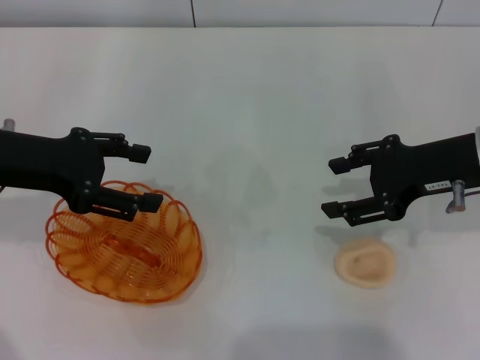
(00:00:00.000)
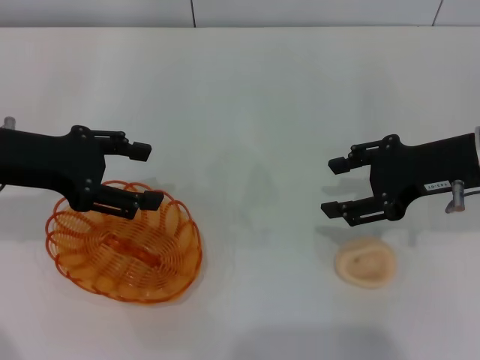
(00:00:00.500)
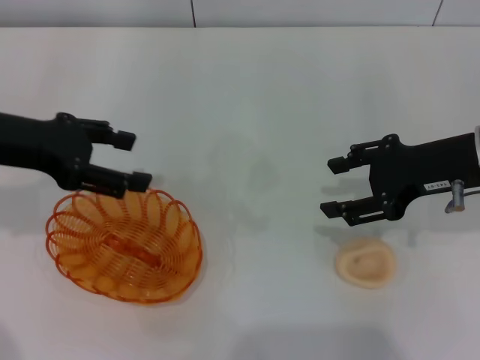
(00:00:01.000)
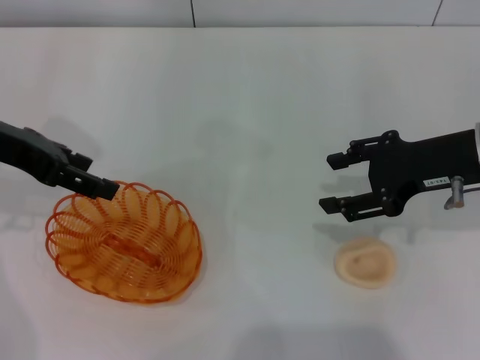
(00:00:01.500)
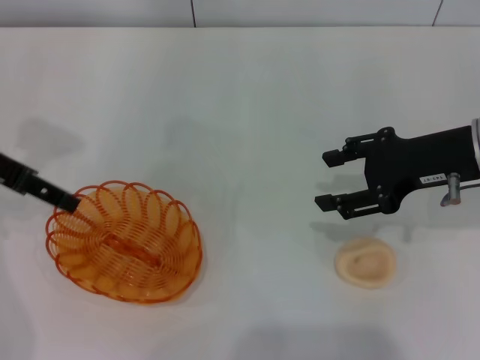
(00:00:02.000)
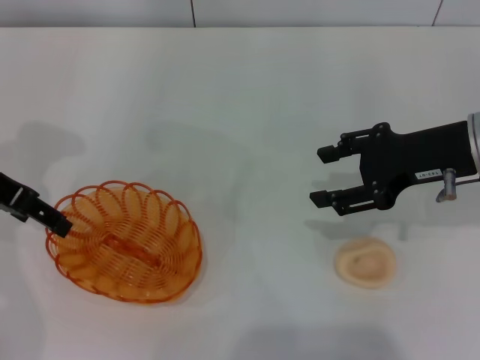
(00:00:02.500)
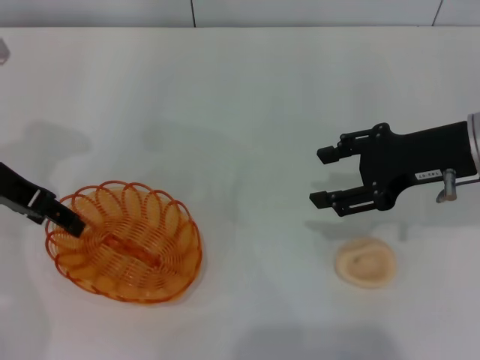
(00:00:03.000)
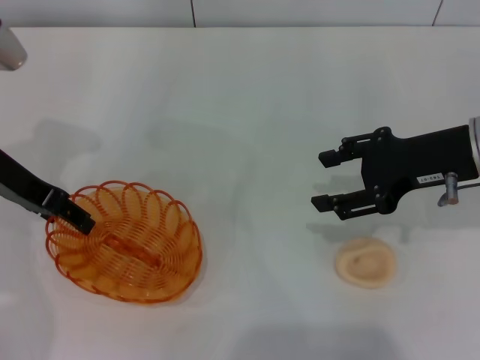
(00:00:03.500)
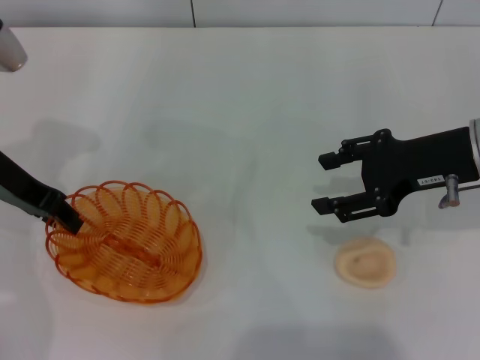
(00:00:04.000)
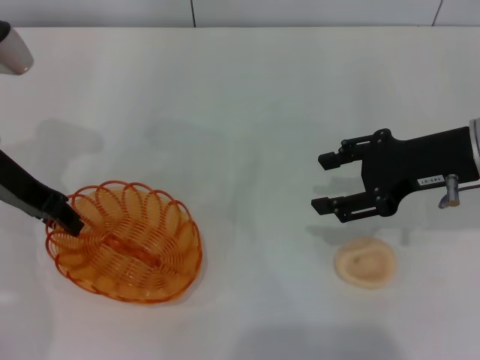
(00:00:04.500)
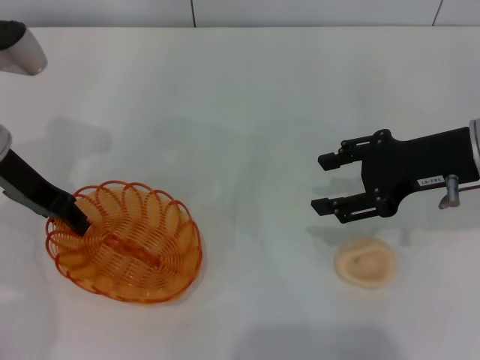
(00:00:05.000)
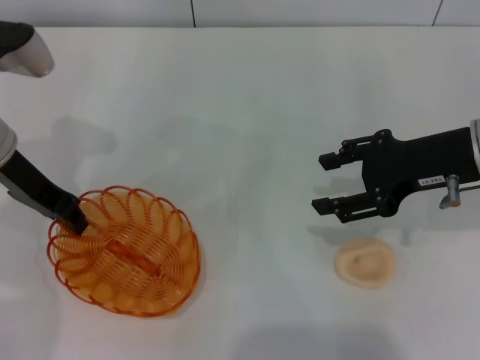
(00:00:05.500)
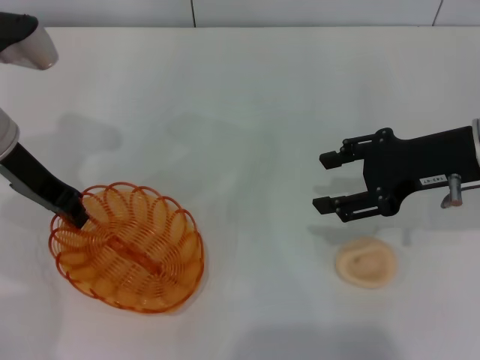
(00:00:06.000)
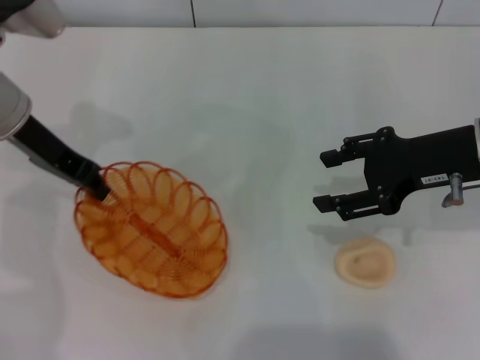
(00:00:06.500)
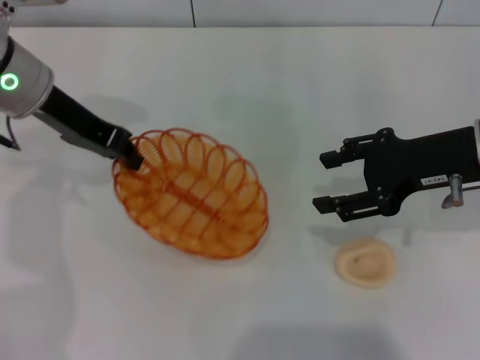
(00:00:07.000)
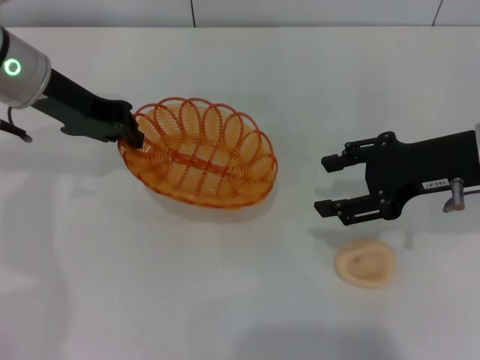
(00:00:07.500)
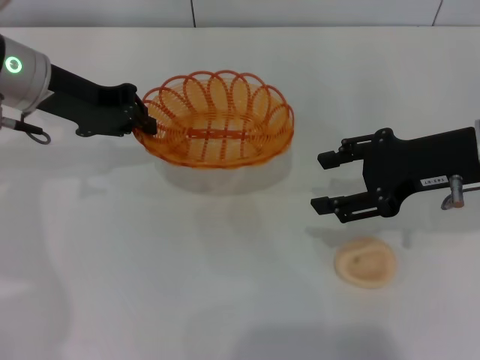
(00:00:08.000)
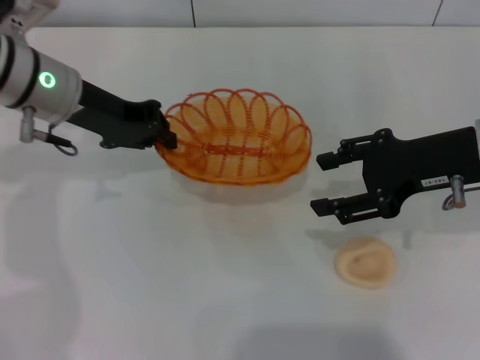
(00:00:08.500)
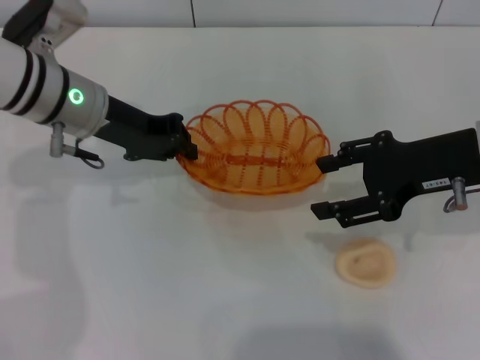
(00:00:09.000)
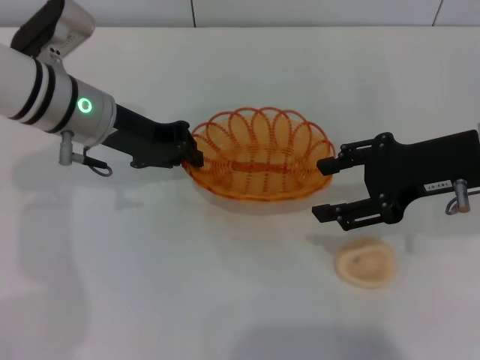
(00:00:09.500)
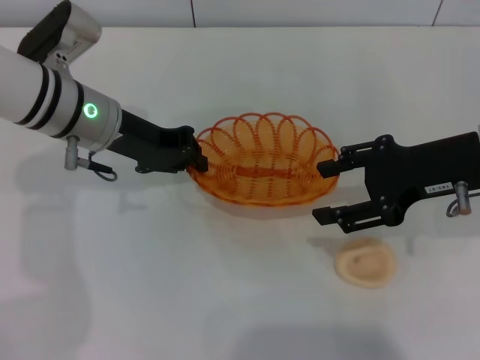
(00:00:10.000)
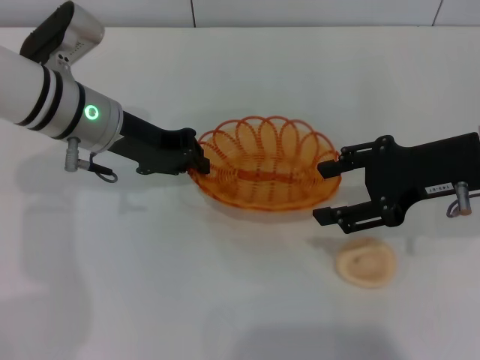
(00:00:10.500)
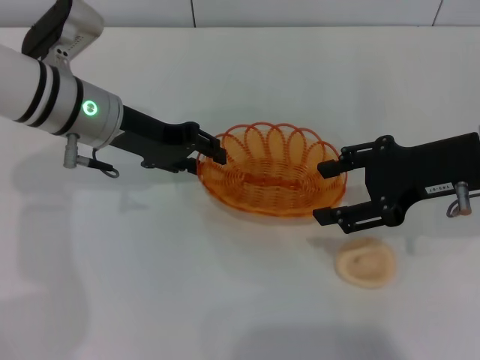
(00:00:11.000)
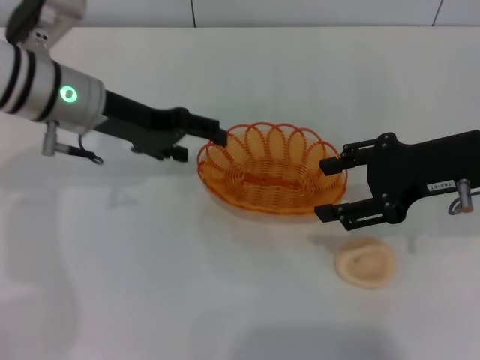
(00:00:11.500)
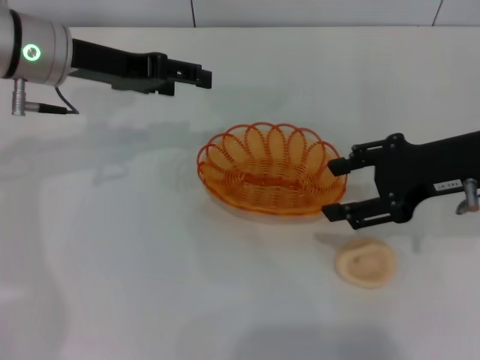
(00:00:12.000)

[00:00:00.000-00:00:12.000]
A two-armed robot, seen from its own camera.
Step, 00:00:00.000 to 00:00:06.500: Pick up the basket with the left gripper.
Step, 00:00:07.500 to 00:00:11.500: Place the basket in the center of view with the left gripper.
00:00:00.000 to 00:00:02.000: The left gripper changes place by some 5 cm.
00:00:02.000 to 00:00:04.000: The left gripper changes place by approximately 5 cm, and closes up.
00:00:04.000 to 00:00:06.000: The grippers stay close to where they were, moving slightly.
00:00:08.000 to 00:00:10.000: The left gripper goes about 5 cm to the right and downward.
00:00:10.000 to 00:00:12.000: The left gripper travels upward by about 5 cm, and opens its fingers.

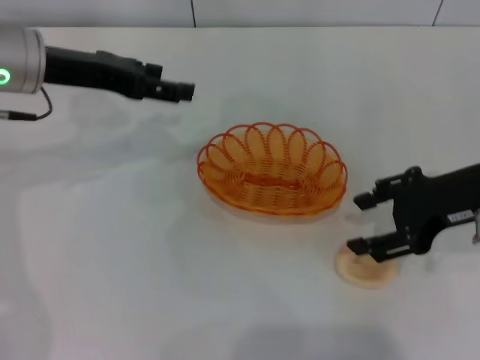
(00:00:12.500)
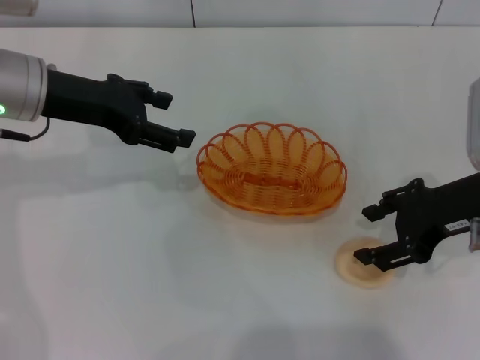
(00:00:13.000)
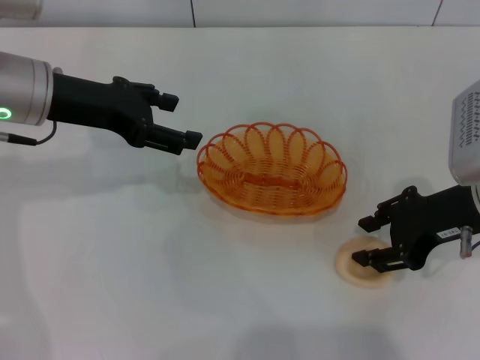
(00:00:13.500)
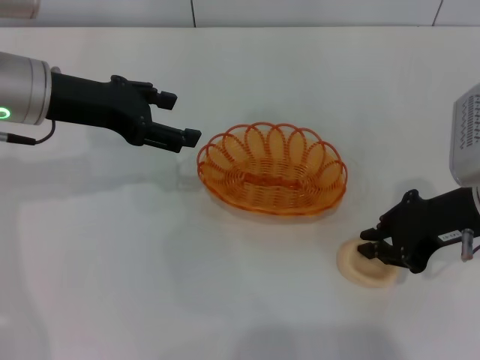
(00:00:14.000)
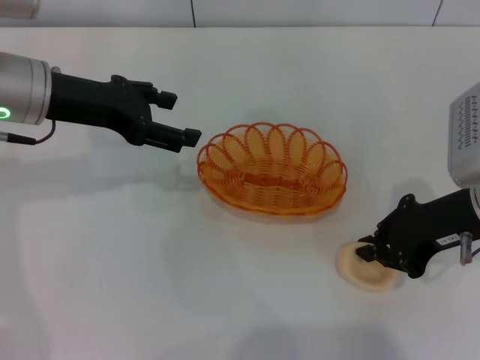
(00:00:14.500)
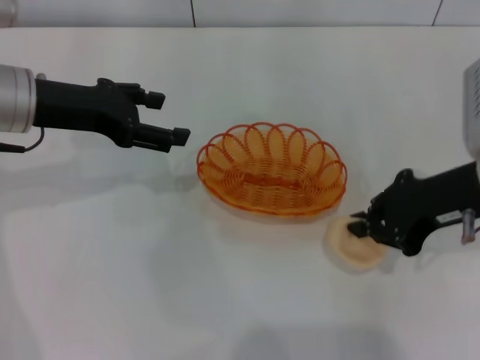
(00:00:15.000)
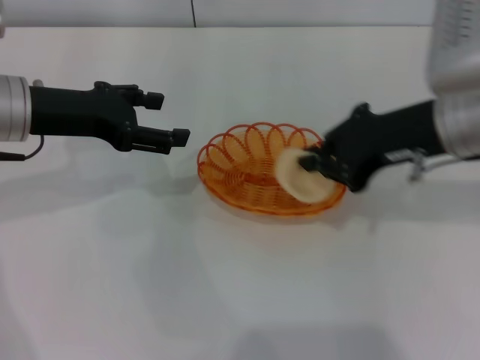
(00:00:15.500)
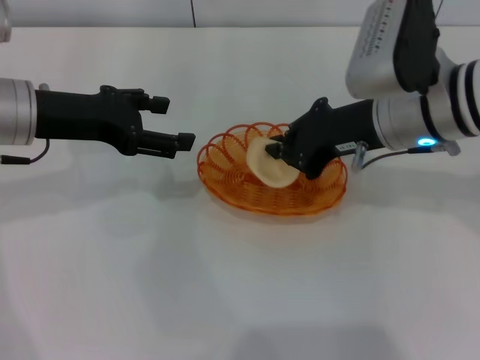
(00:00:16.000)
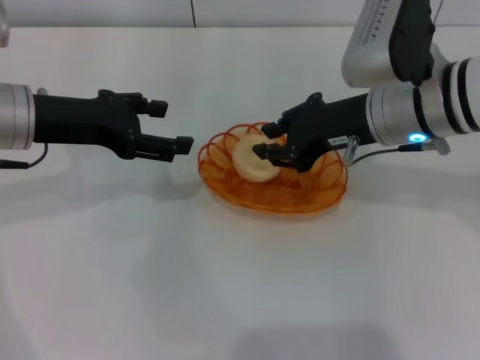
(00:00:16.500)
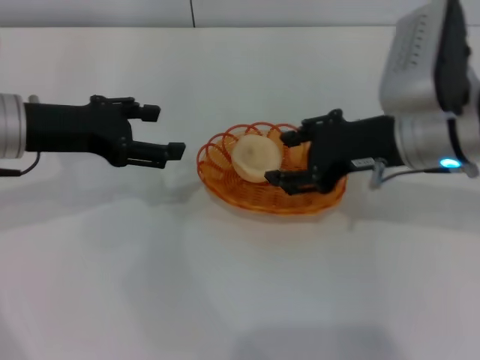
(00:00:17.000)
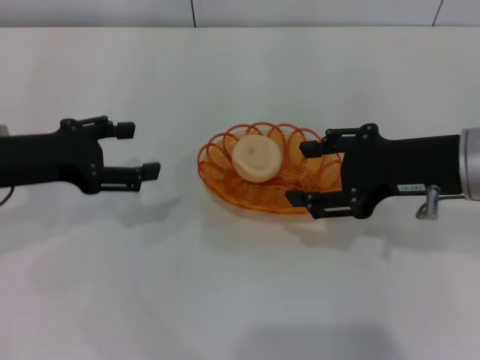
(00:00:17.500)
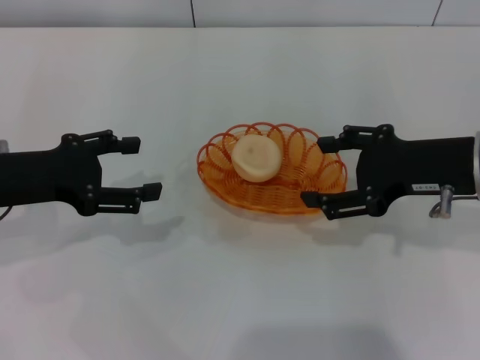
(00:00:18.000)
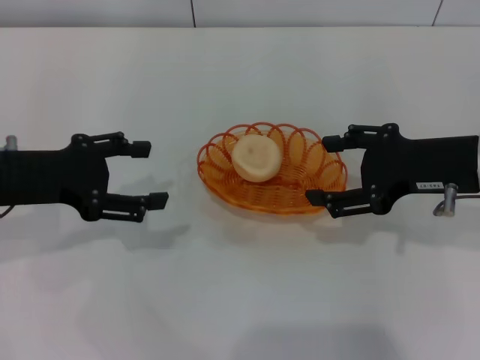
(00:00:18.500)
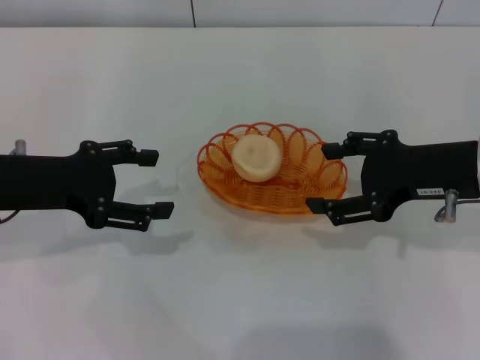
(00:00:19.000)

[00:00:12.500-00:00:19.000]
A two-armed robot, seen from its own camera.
Step, 00:00:12.500 to 00:00:15.000: Pick up the egg yolk pastry with the right gripper.
Step, 00:00:15.500 to 00:00:17.500: Place the egg yolk pastry into the basket with the right gripper.
00:00:12.500 to 00:00:14.500: The right gripper closes up.
00:00:14.500 to 00:00:17.000: The right gripper heads to the left, covering approximately 5 cm, and opens its fingers.
00:00:17.000 to 00:00:19.000: The right gripper moves to the right, roughly 5 cm, and opens its fingers; the left gripper changes place by about 5 cm.
